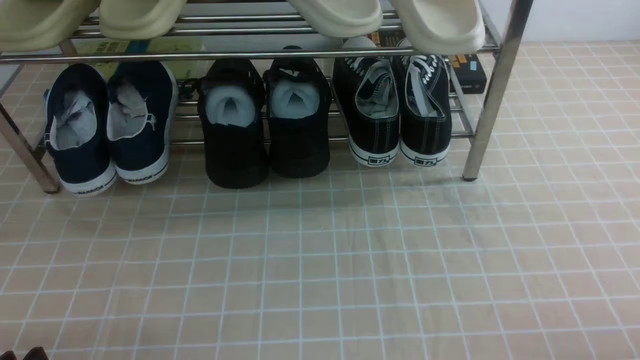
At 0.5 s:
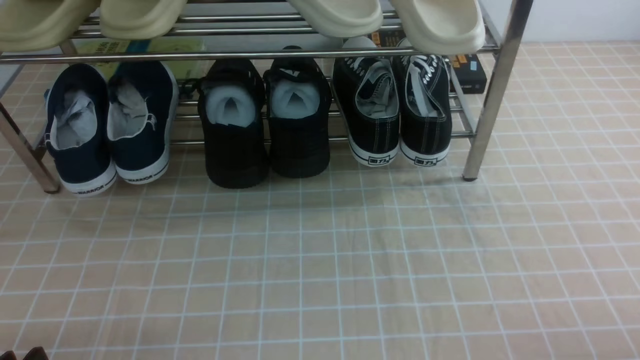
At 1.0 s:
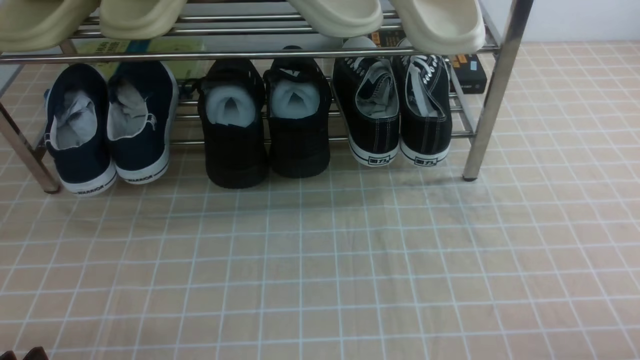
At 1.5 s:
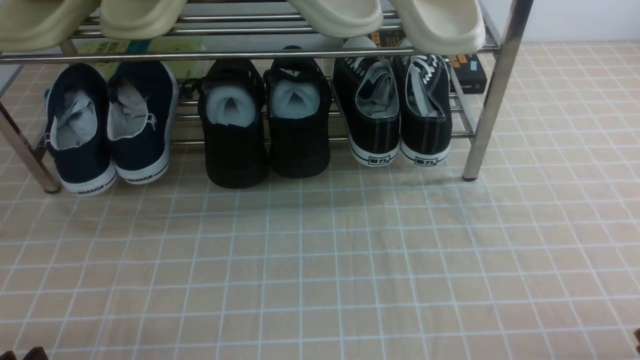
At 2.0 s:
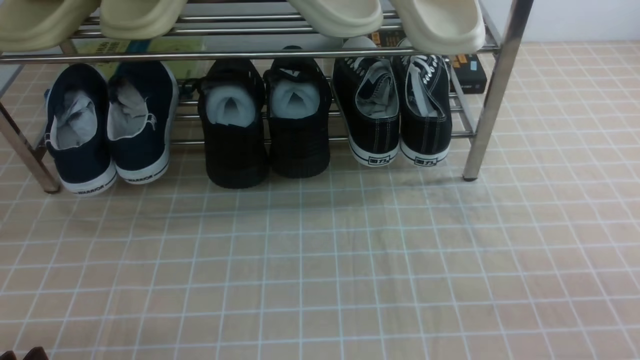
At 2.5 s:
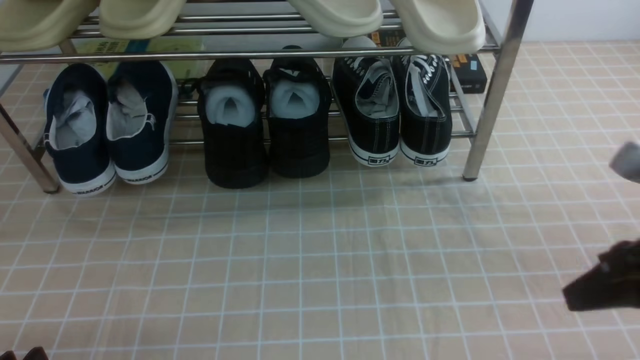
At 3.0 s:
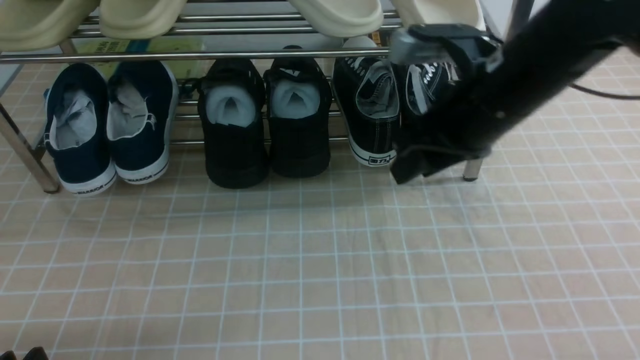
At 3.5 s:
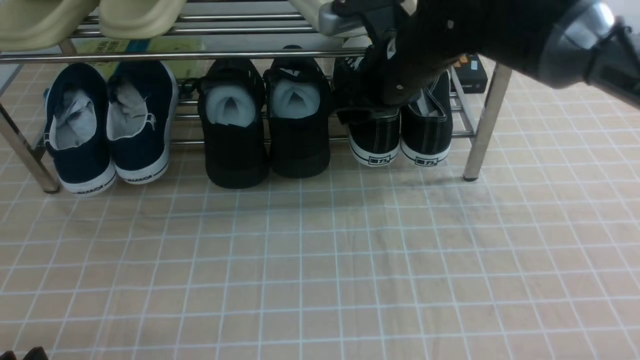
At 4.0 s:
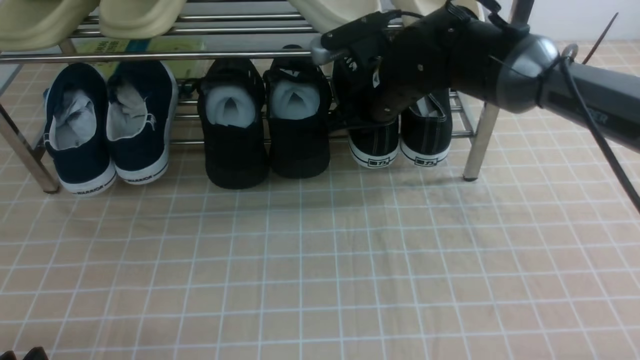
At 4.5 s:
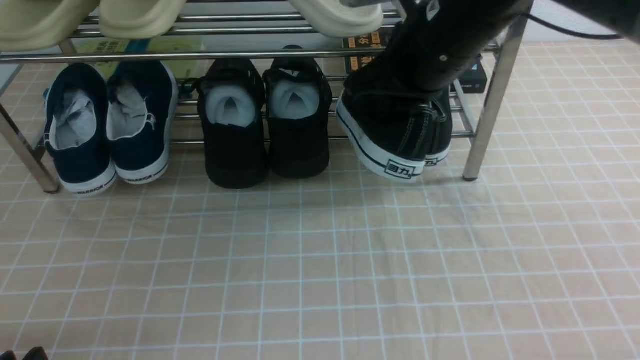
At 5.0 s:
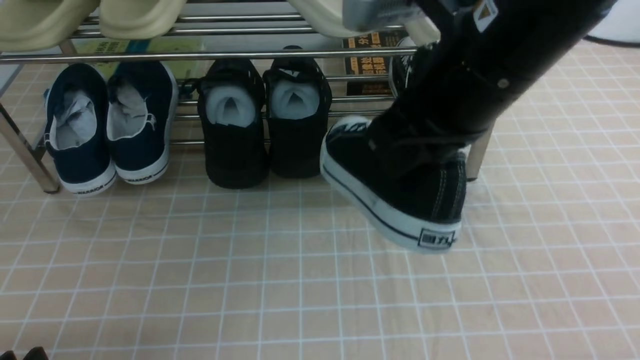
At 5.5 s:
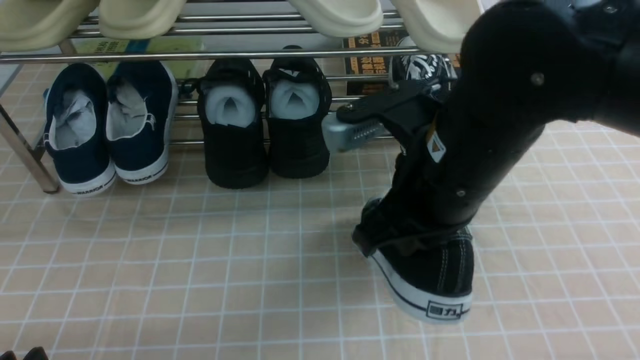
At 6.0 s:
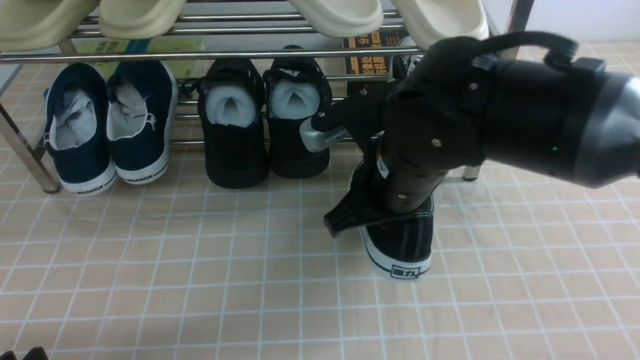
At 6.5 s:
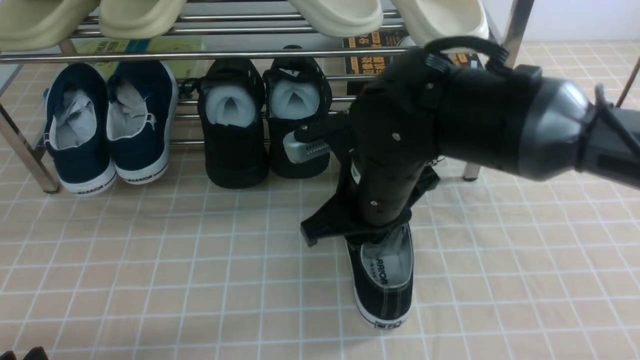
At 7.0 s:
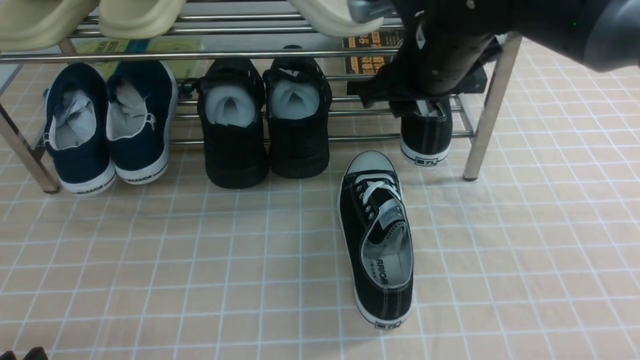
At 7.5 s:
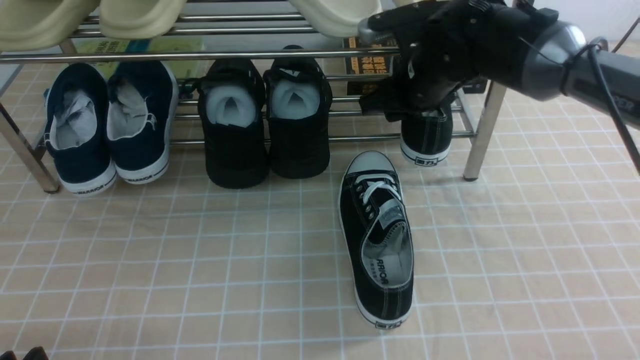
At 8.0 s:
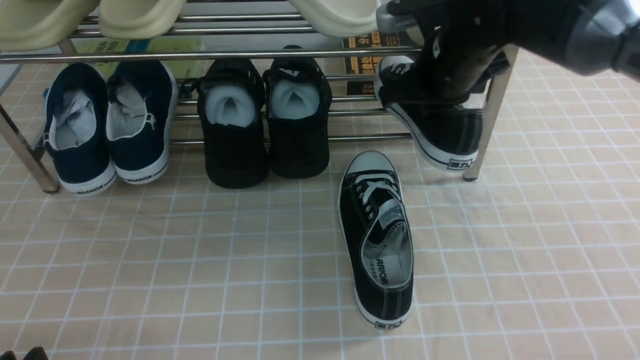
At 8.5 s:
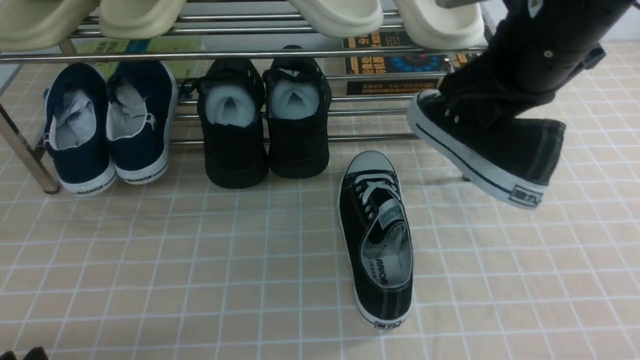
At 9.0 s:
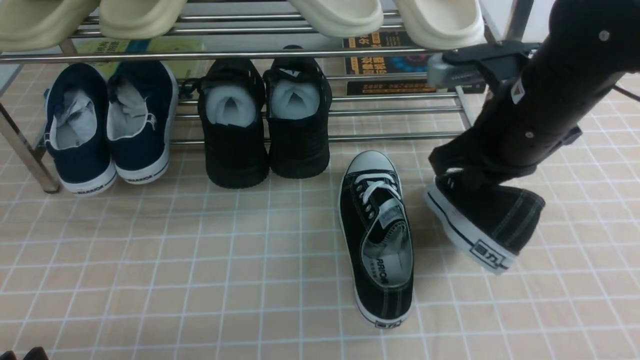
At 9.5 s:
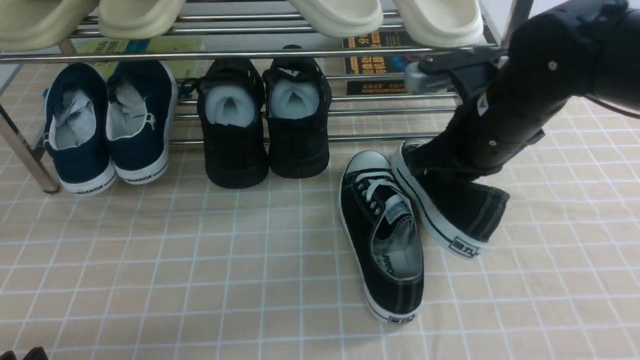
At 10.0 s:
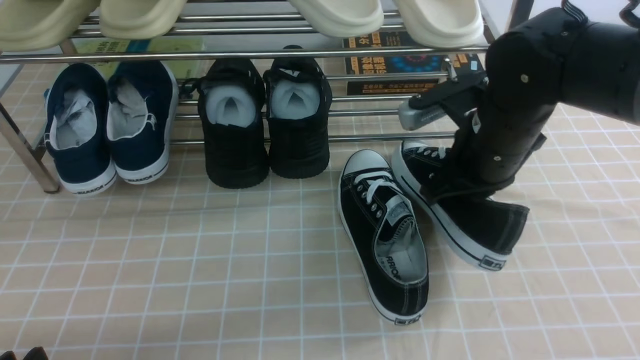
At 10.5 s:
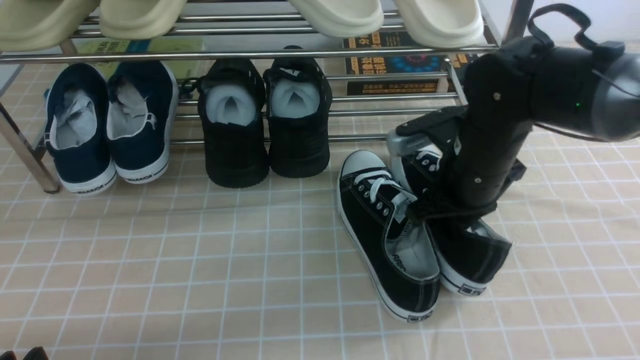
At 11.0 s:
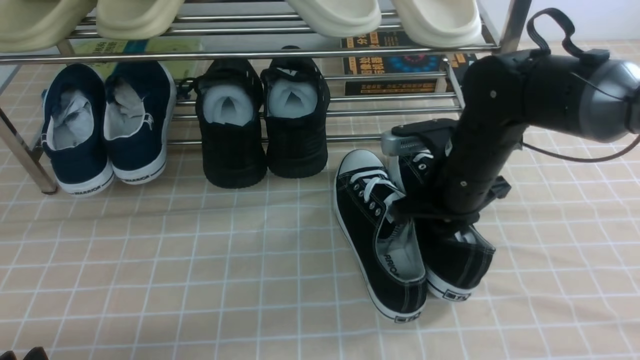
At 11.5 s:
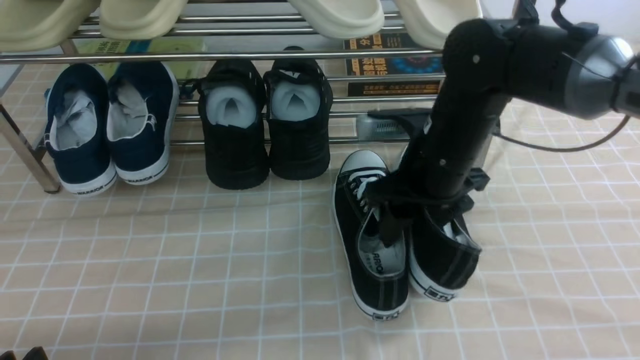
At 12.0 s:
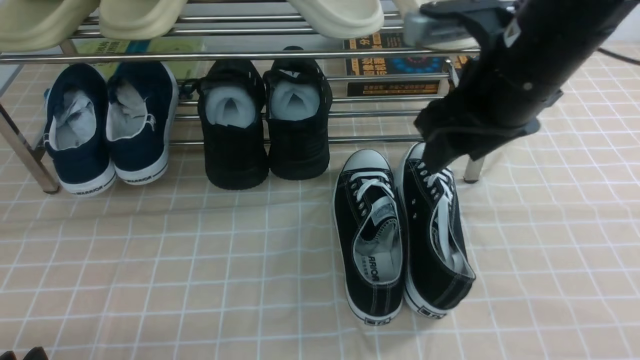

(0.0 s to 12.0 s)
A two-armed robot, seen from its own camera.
Step, 0.0 s - 3.5 s: use the right arm to clamp a shoe on the right side of the shoe rack.
Step, 4.5 s - 6.5 s: use the right arm to take out the clamped shoe from the shoe rack and put it down.
Step, 7.0 s - 7.5 s: use the right arm to clamp a shoe on the right side of the shoe rack.
Step, 8.0 s - 11.5 s: use the right arm to take out the clamped shoe from the shoe rack and put it down.
2.0 s - 4.0 s: The right gripper heads forward and to the left, covering roughly 40 cm, and opens, then closes again.
4.0 s - 6.0 s: The right gripper goes approximately 15 cm backward.
6.0 s - 8.0 s: The right gripper is displaced forward and to the right by about 15 cm, and opens, then closes once more.
8.0 s - 10.0 s: The right gripper heads backward and downward, covering roughly 10 cm.
10.0 s - 12.0 s: The right gripper moves upward, about 10 cm, and opens.

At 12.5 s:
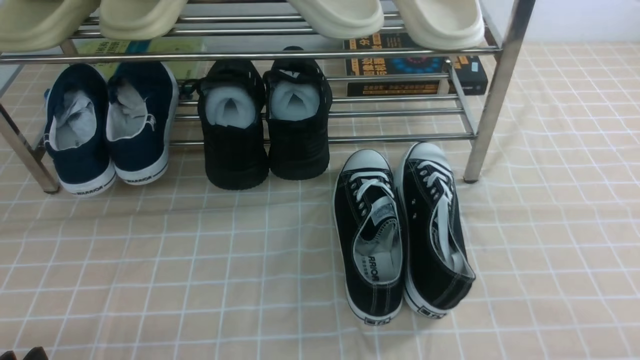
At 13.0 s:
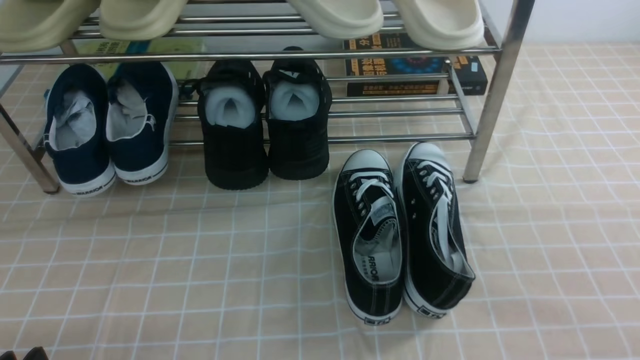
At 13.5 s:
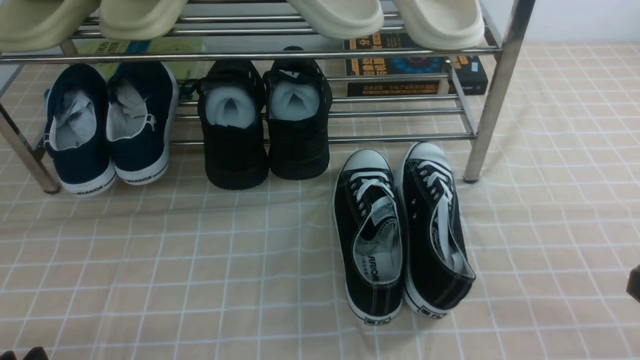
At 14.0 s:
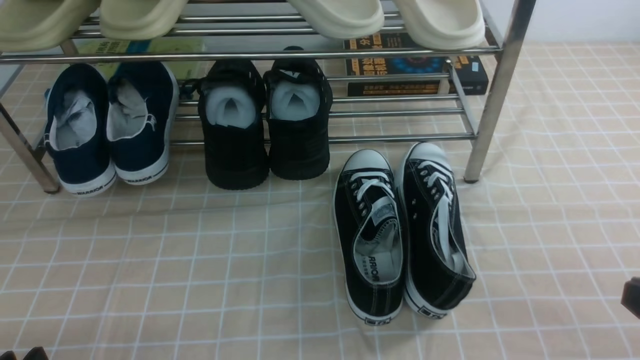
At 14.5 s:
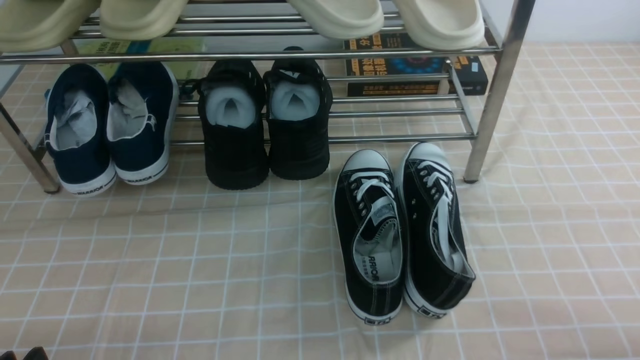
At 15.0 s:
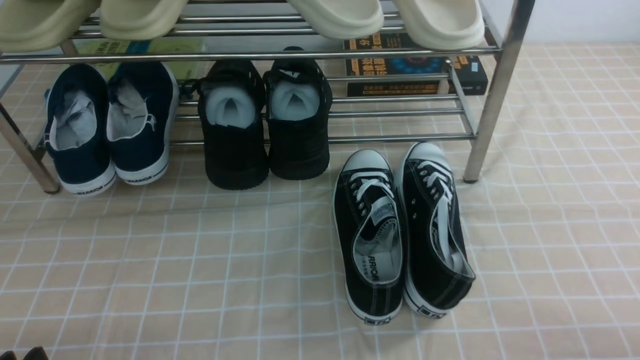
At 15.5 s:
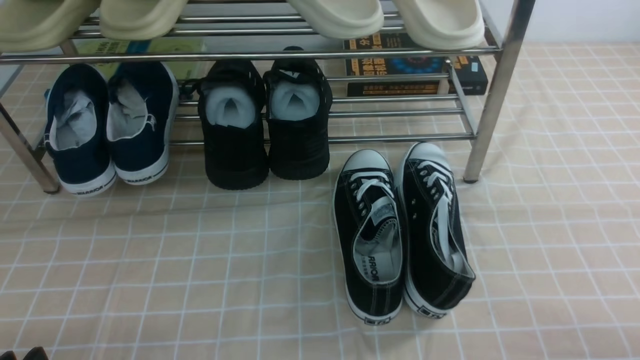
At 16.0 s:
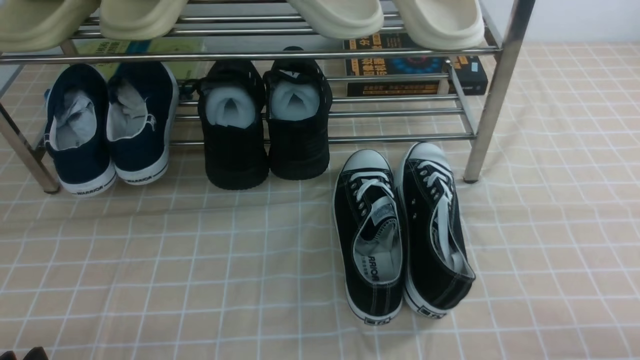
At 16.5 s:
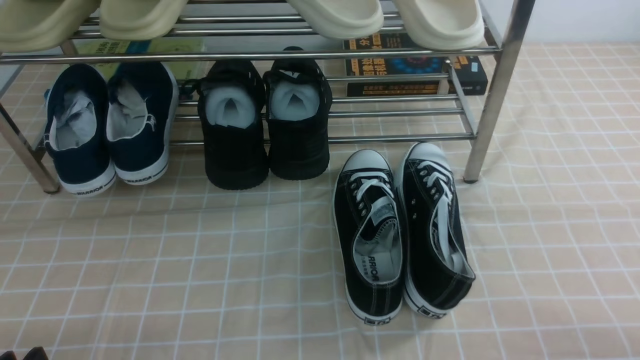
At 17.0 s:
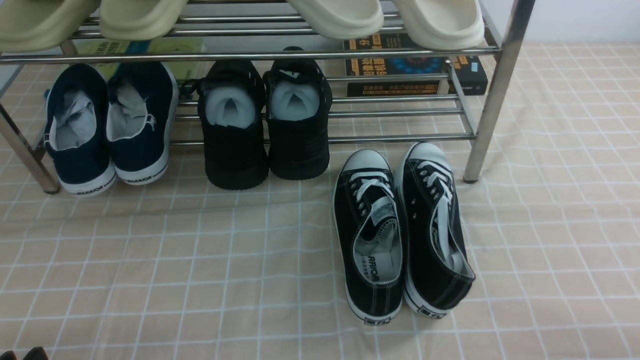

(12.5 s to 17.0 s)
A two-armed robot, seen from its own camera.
12.5 s - 14.5 s: The right gripper is displaced downward by roughly 25 cm.

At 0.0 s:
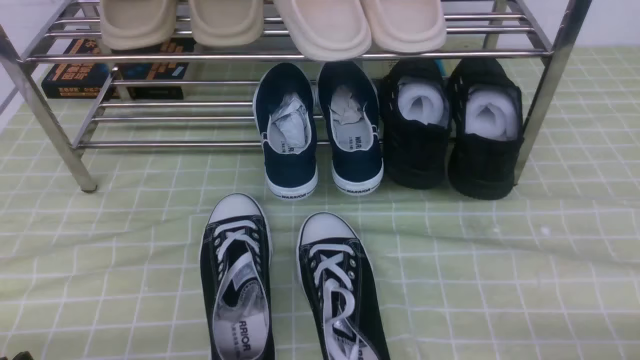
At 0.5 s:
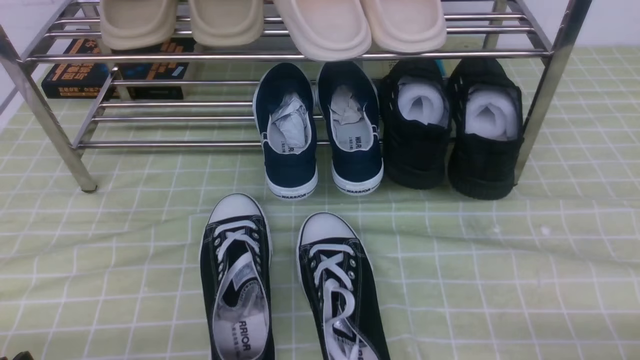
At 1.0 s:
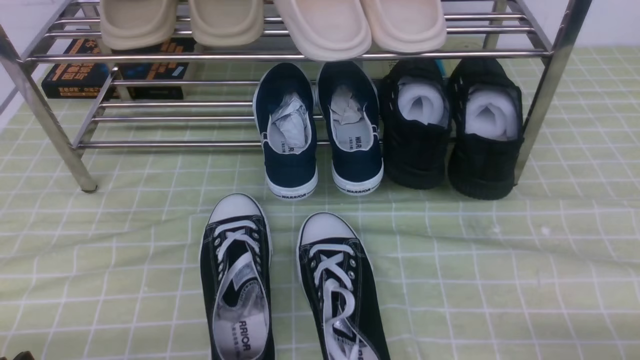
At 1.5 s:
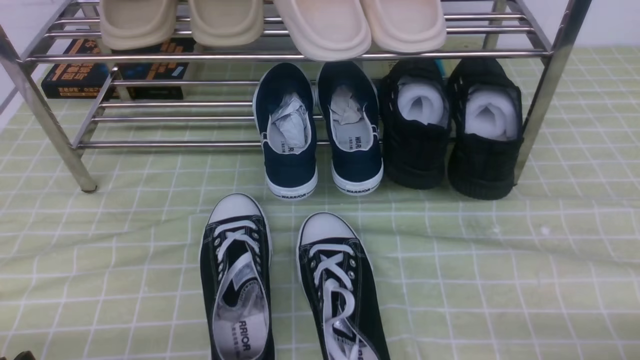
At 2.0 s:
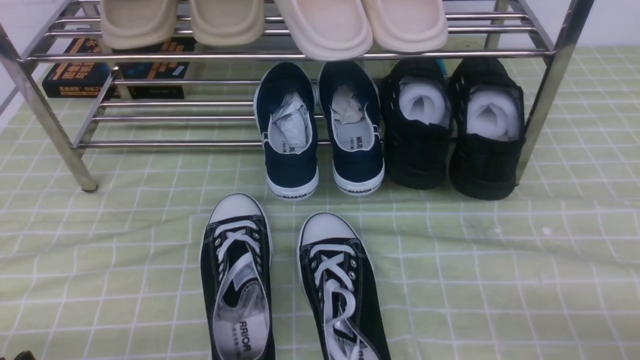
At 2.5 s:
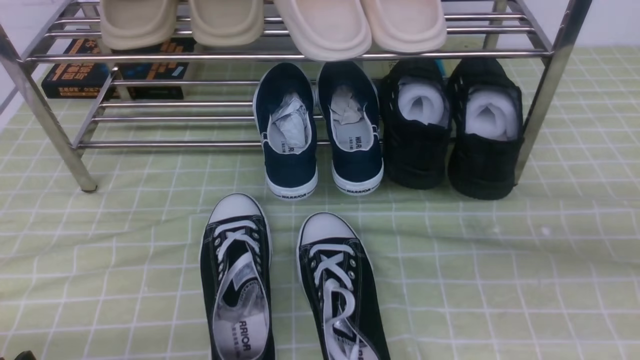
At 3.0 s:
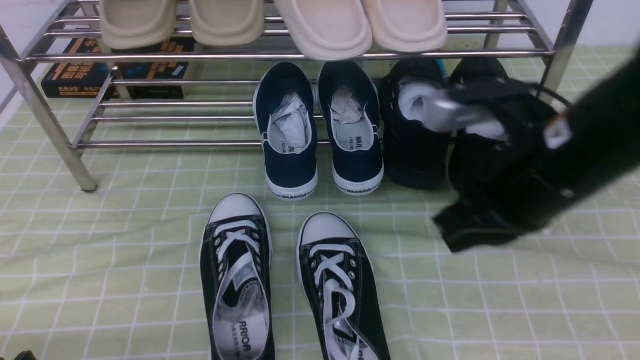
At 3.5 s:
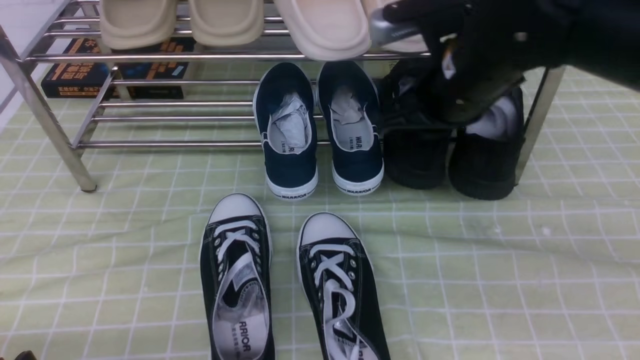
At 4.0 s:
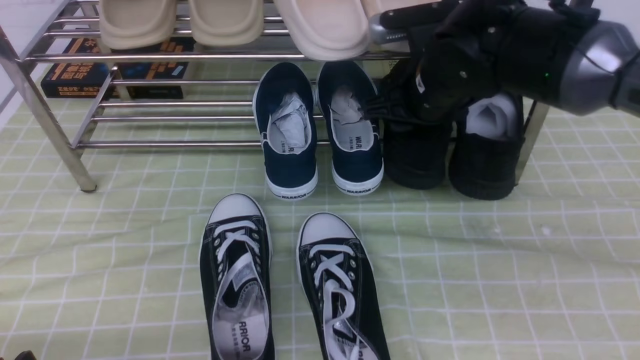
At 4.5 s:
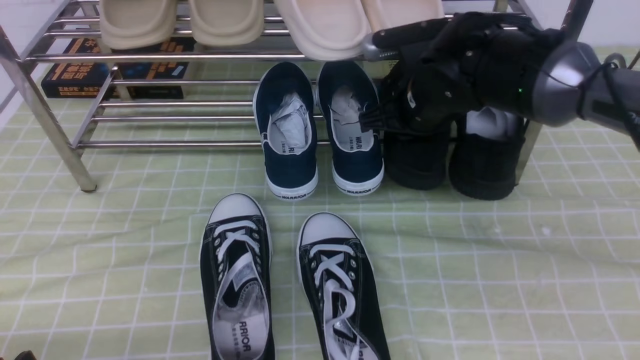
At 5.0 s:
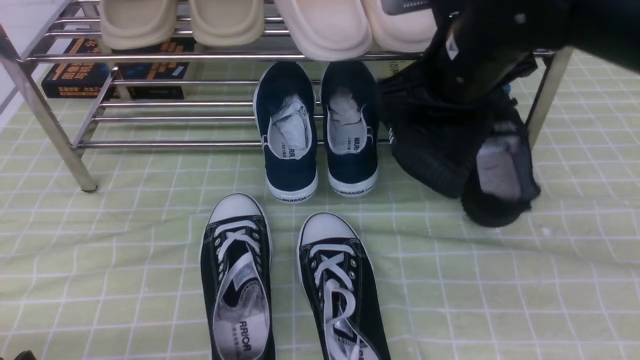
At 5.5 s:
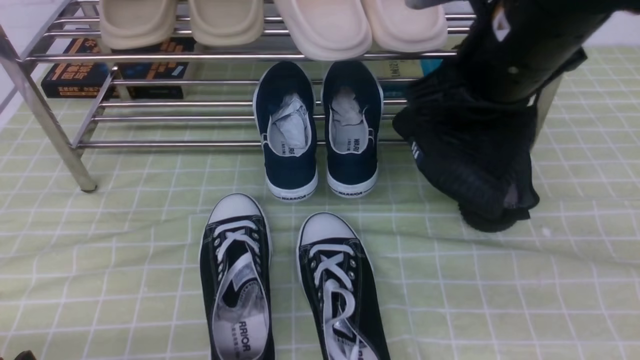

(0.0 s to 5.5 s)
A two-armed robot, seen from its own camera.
Step, 0.0 s - 4.5 s: use the right arm to clamp a shoe on the right side of the shoe rack.
0.0 s - 2.0 s: The right gripper goes roughly 5 cm upward.
2.0 s - 3.5 s: The right gripper goes roughly 35 cm forward and to the left.
3.5 s - 5.5 s: The right gripper goes some 5 cm upward, and closes.
